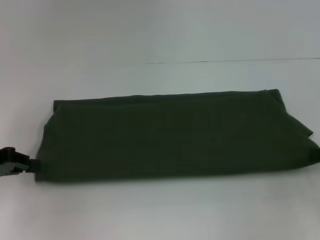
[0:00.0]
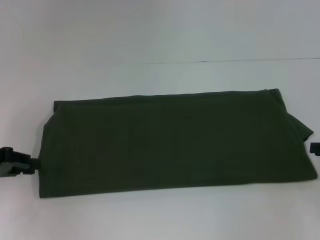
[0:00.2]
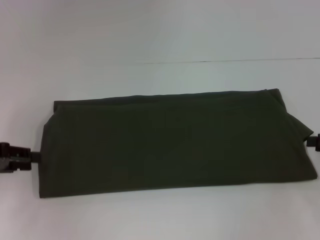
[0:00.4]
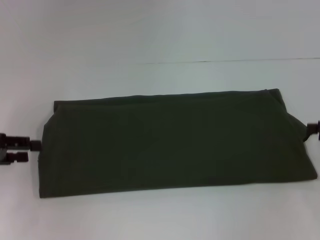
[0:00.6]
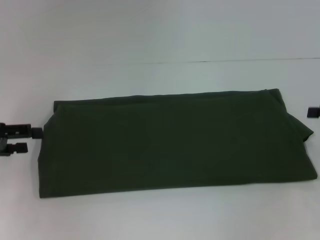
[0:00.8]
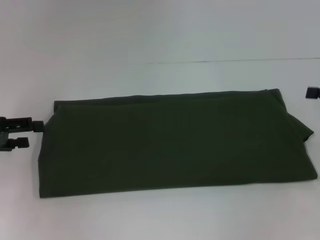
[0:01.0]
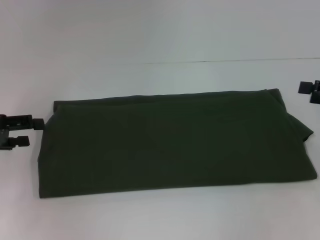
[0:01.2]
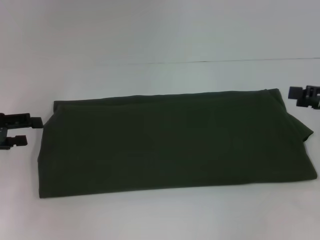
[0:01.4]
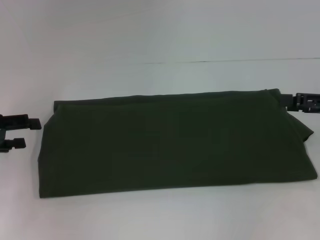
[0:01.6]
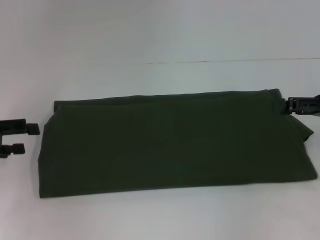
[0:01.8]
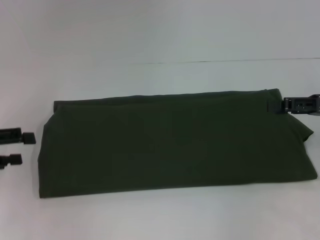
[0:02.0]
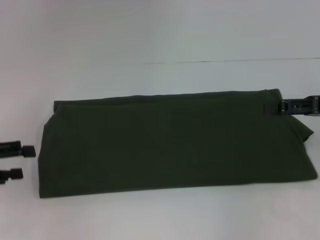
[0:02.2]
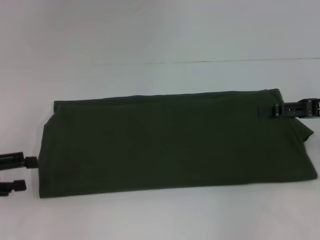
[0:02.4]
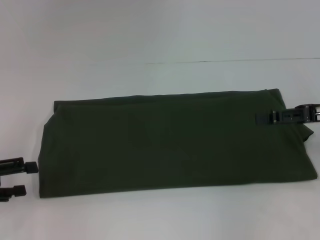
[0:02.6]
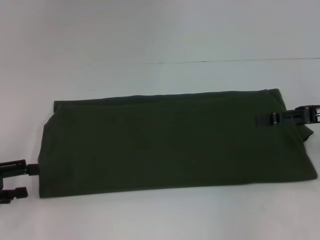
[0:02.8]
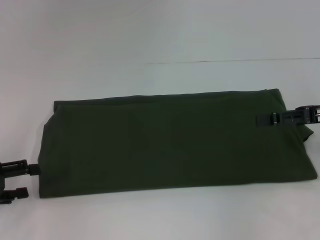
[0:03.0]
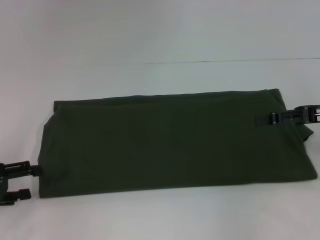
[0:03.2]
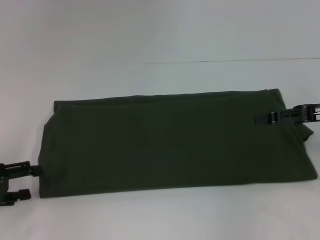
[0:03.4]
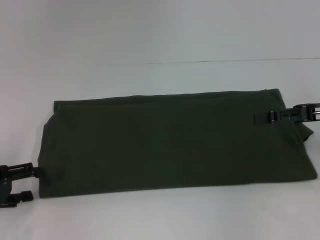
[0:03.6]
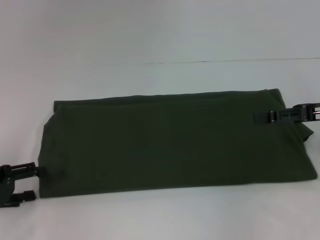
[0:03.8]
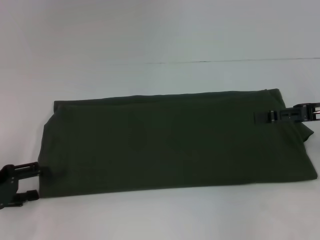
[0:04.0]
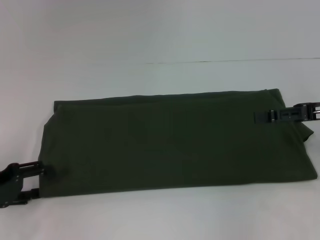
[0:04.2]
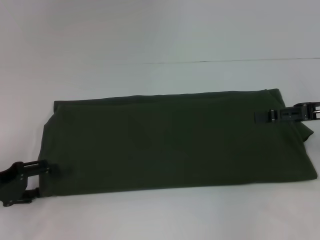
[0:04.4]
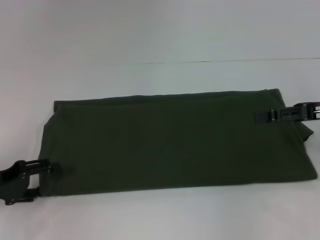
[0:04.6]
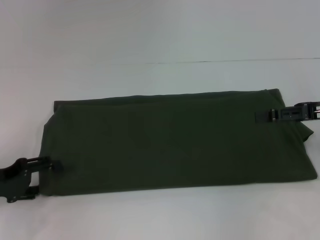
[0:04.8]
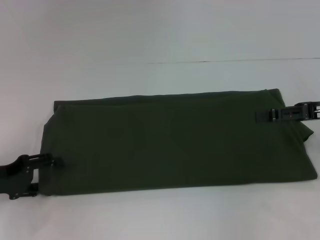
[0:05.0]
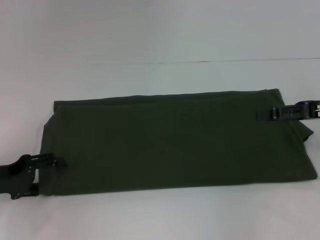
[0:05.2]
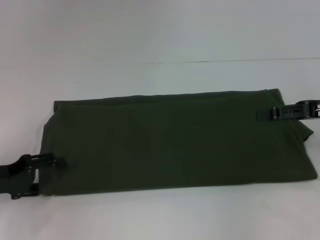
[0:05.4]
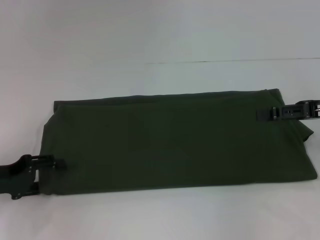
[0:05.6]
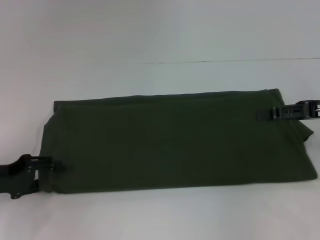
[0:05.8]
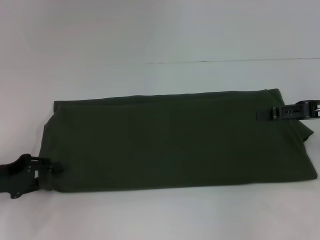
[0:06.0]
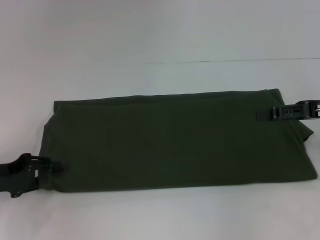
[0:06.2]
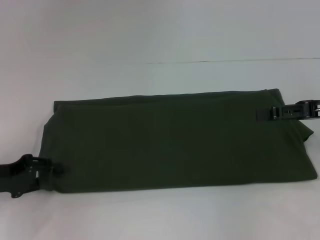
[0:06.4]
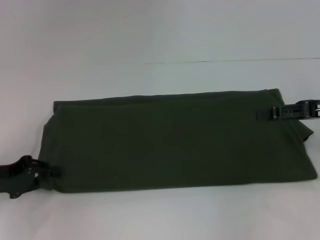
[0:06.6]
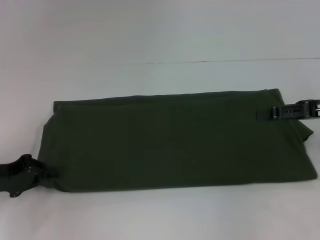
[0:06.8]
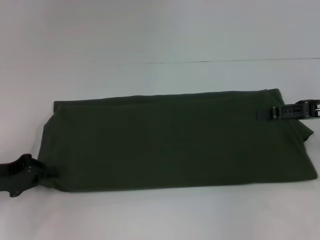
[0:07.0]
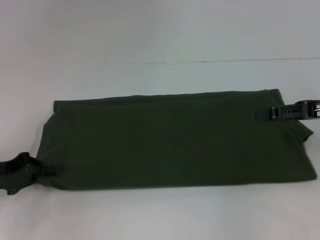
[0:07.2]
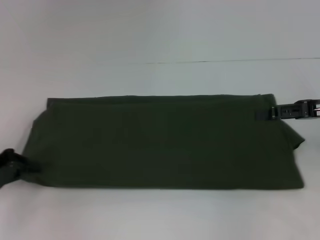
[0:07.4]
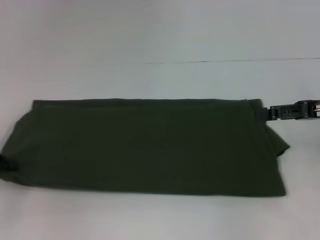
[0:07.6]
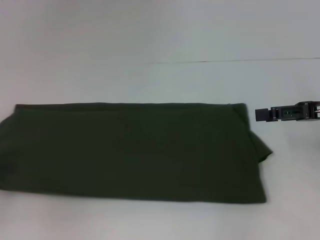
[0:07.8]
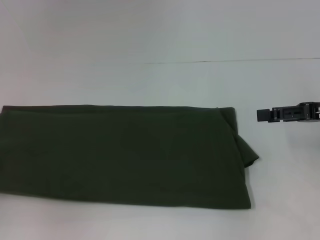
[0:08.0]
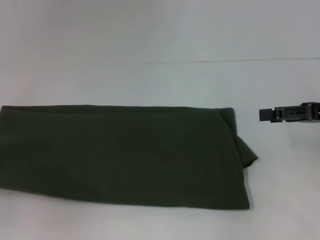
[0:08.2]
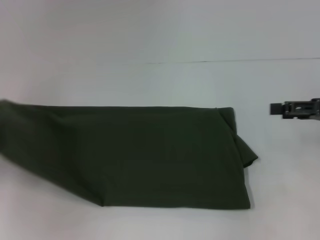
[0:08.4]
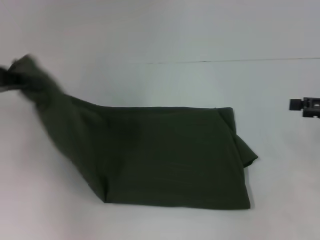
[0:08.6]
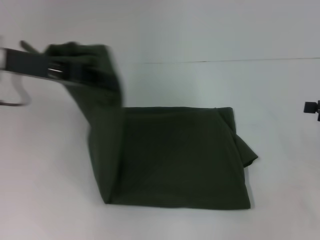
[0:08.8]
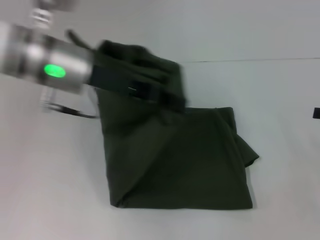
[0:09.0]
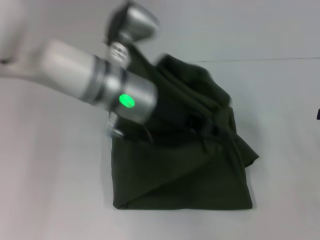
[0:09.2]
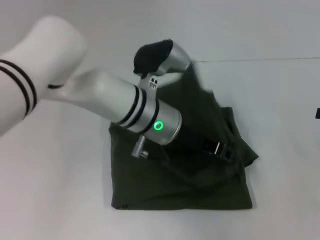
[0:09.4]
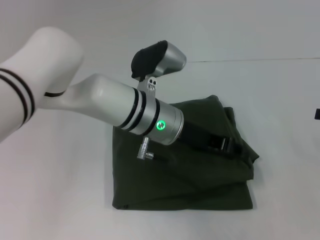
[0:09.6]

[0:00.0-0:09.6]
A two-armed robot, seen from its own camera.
0.0 to 1.6 s: The right gripper shifts by roughly 5 cm, and opens up. The left gripper opens.
1.6 to 3.2 s: The left gripper is displaced backward by approximately 5 cm.
3.2 to 4.8 s: The grippers move only a little.
4.8 to 6.4 s: The left gripper closes its fingers.
6.4 to 8.0 s: The left gripper shifts approximately 10 cm to the left and upward, and closes up.
8.0 to 9.6 s: The right gripper moves to the right, approximately 10 cm. The left gripper is displaced to the right by approximately 40 cm.

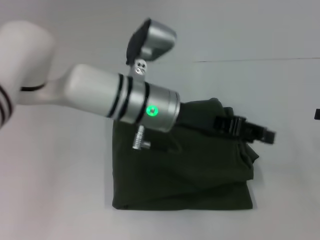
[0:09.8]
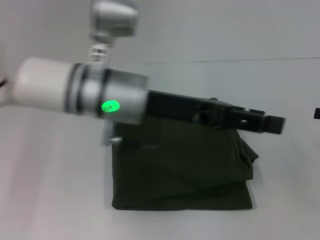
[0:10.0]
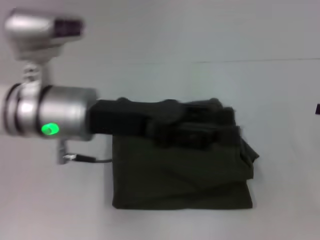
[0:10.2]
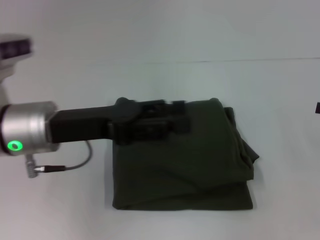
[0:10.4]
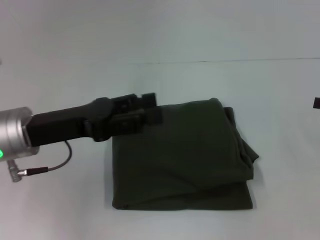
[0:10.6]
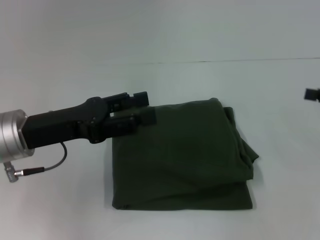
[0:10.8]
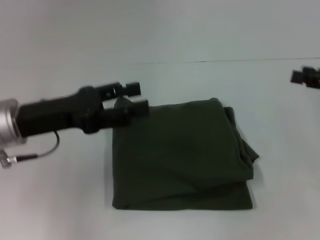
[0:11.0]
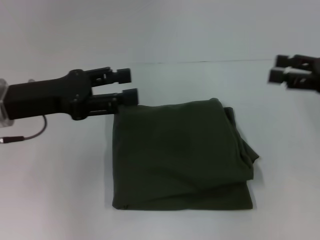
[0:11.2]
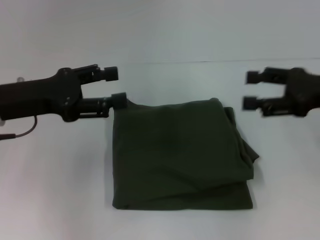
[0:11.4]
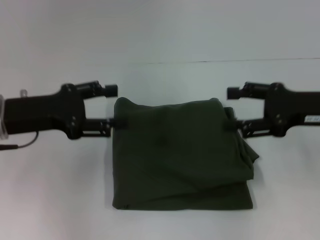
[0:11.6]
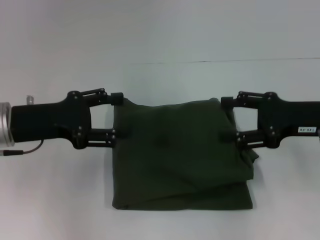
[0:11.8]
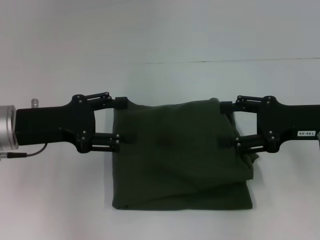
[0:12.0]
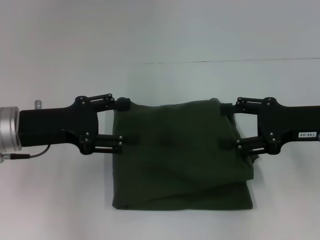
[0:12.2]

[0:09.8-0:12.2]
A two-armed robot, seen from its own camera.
9.8 to 11.0 s: The left gripper moves to the left, some 20 cm, and opens up. Meanwhile the right gripper shifts by roughly 5 cm.
11.0 to 12.2 s: The right gripper travels to the left by approximately 10 cm.

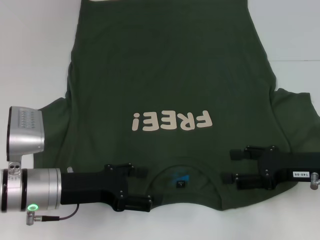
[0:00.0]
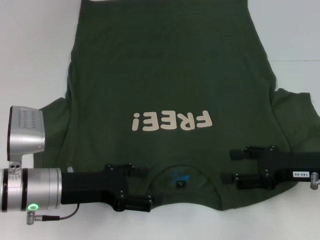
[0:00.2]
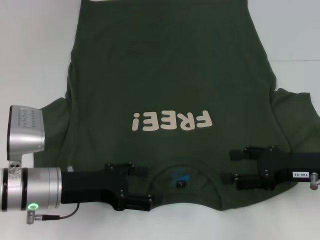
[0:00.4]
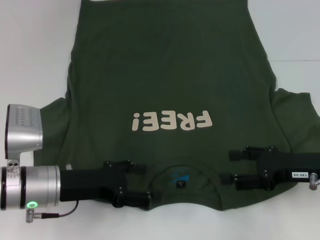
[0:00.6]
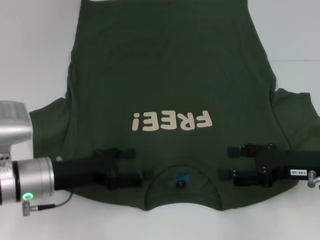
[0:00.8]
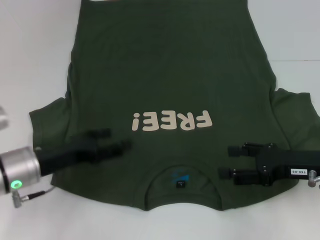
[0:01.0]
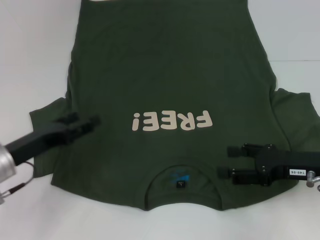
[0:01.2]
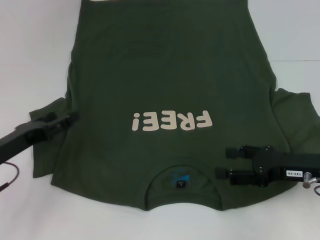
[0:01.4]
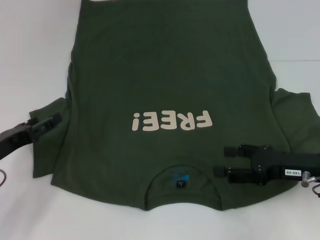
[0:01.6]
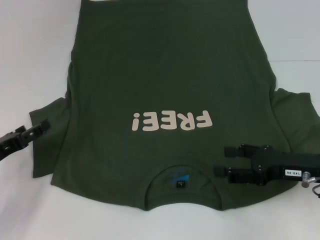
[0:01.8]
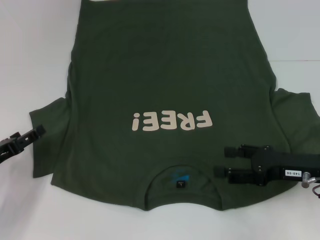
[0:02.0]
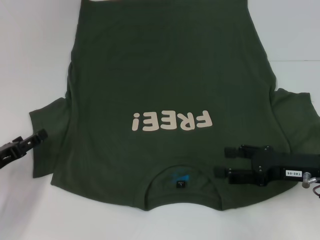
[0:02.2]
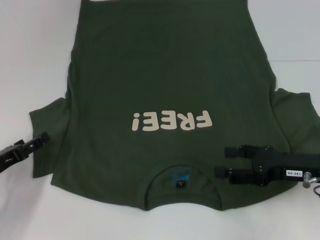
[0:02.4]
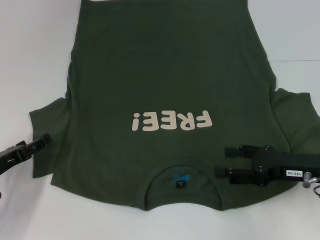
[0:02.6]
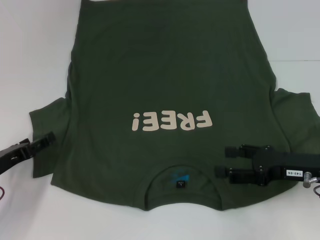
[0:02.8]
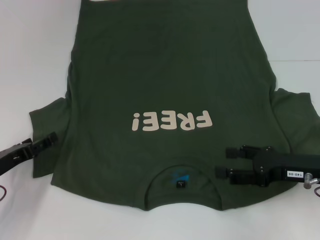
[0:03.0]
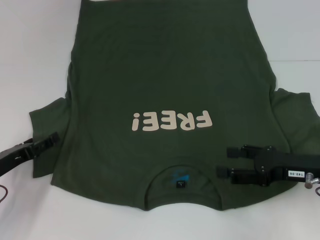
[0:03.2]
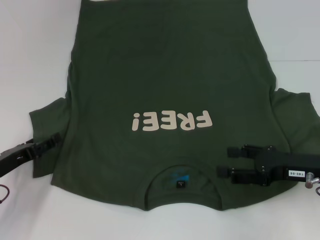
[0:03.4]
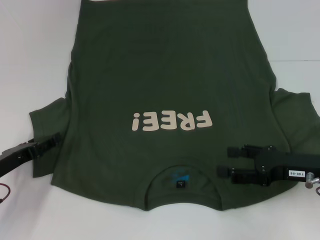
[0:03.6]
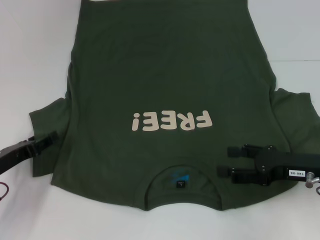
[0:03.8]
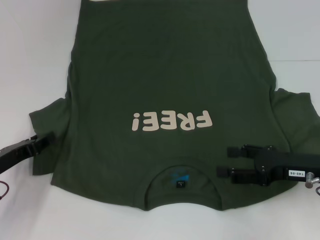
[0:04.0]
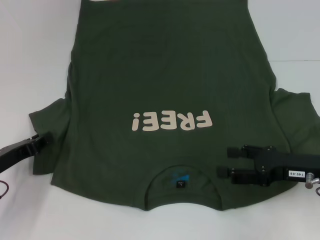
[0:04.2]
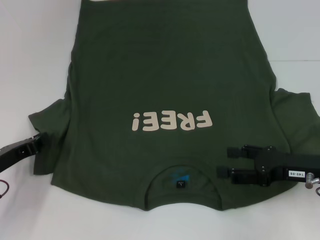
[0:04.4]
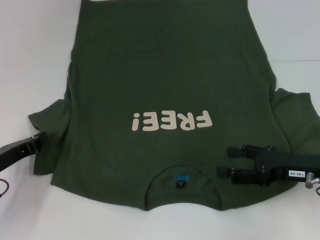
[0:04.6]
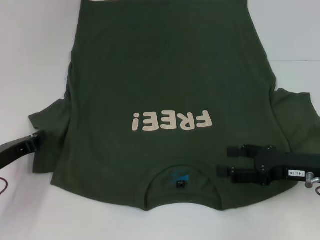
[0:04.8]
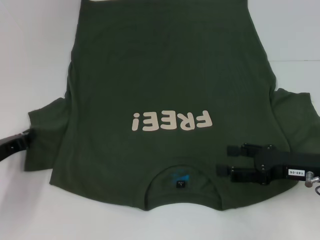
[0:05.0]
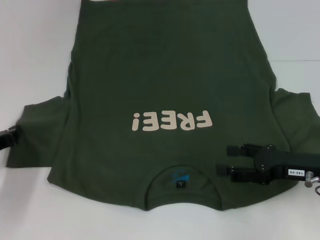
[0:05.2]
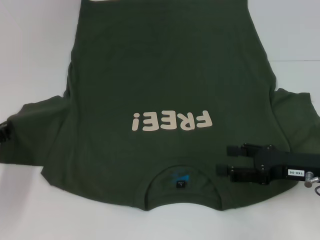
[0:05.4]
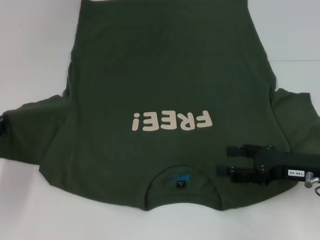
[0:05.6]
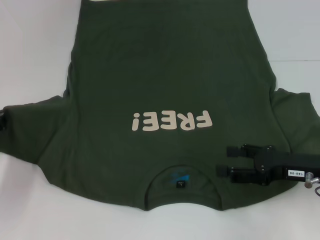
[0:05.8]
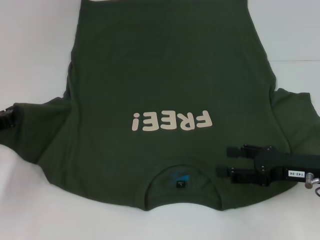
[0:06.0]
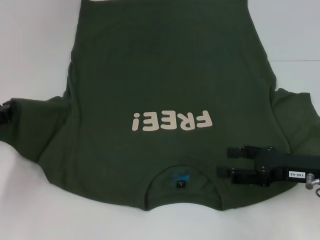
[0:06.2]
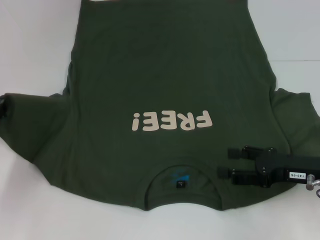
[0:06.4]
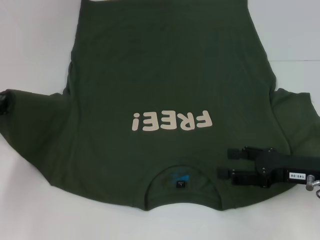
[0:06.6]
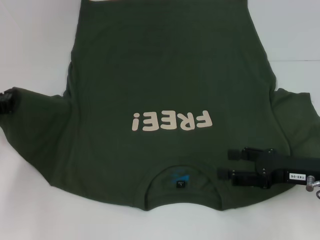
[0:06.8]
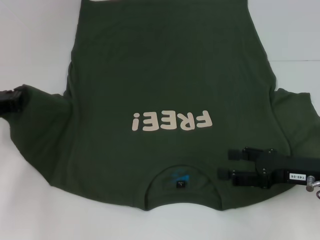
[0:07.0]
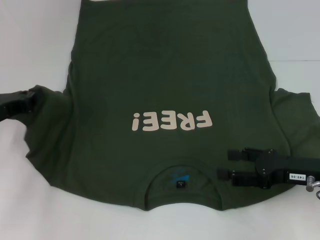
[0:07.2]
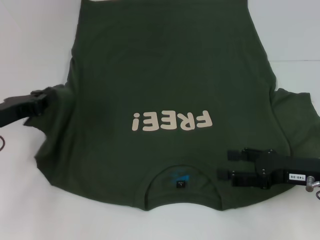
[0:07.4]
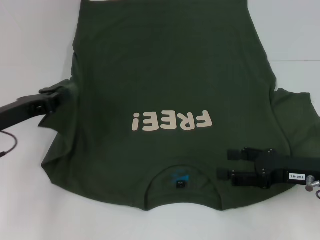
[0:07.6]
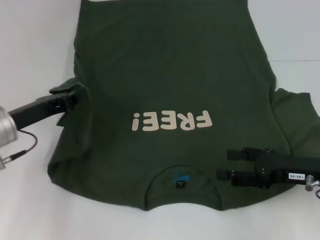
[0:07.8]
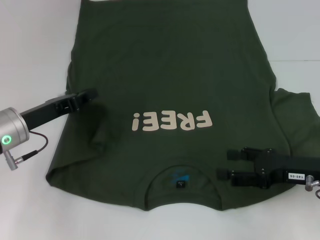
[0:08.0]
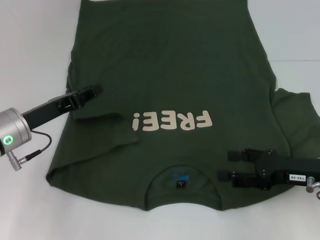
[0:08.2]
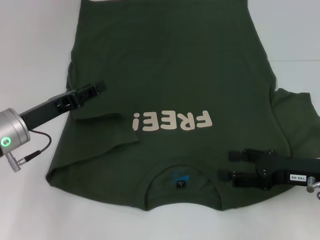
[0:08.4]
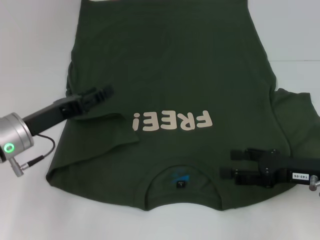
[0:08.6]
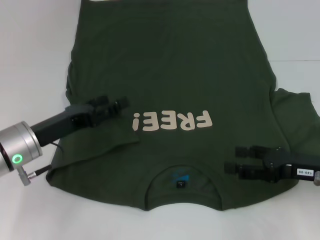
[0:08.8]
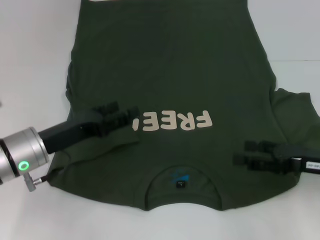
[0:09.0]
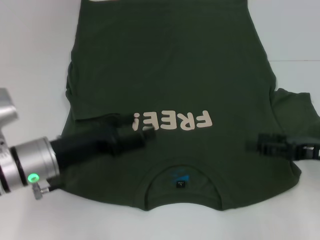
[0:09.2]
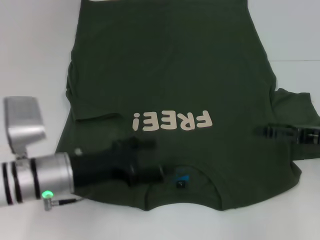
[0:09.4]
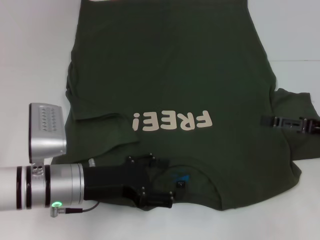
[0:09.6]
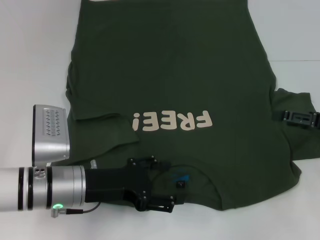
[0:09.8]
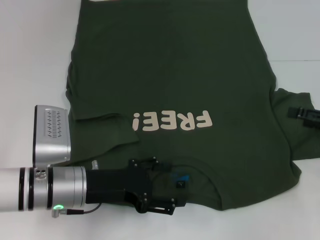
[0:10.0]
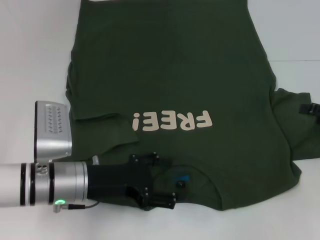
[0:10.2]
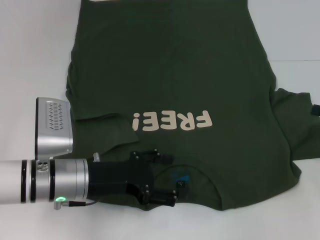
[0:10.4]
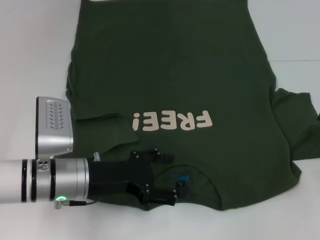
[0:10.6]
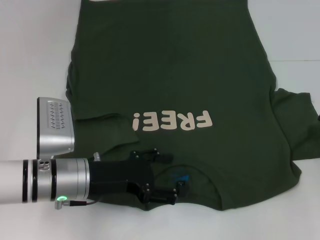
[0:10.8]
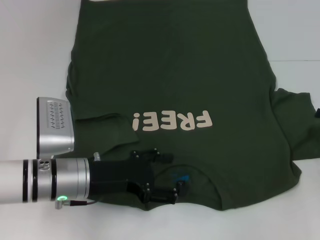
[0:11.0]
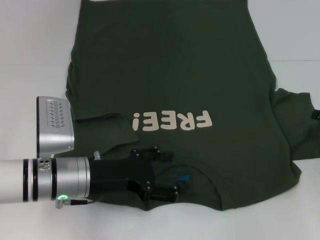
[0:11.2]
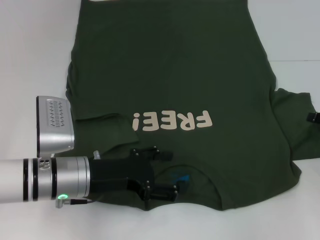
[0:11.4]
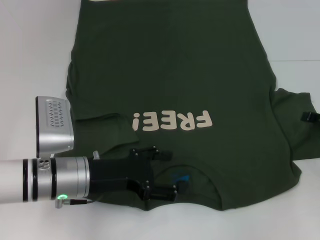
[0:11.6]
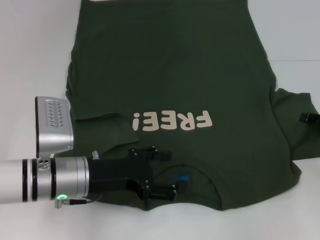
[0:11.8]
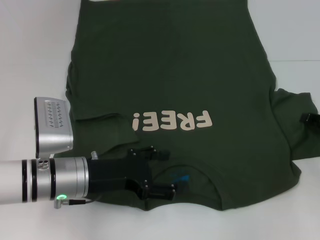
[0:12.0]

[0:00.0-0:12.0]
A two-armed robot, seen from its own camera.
Step, 0.0 to 8.2 s: Fold the bottom left sleeve with your left hand.
0.0 to 1.6 s: The left gripper heads to the left, covering approximately 10 cm.
1.6 to 3.0 s: The grippers make only small movements.
3.0 to 4.4 s: The left gripper closes up.
4.4 to 6.0 s: The left gripper moves approximately 5 cm.
6.0 to 7.6 s: The left gripper changes place by roughly 5 cm.
7.6 to 9.0 s: The left gripper heads to the right, covering approximately 5 cm, and opens its fingers.
9.0 to 10.4 s: The left gripper shifts some 5 cm to the right. The right gripper heads to the right, covering roughly 10 cm.
10.4 to 12.0 s: There are only small adjustments of the grippers.
